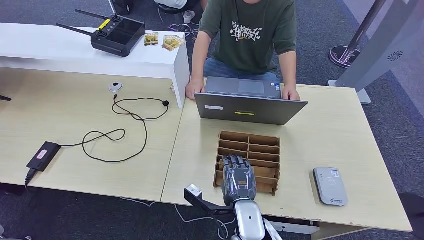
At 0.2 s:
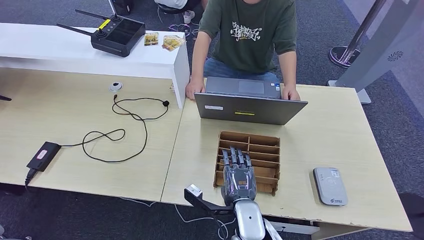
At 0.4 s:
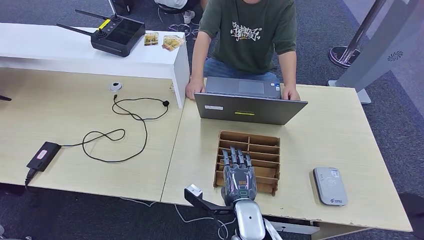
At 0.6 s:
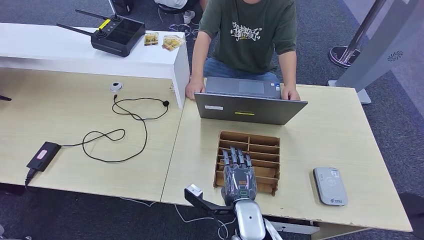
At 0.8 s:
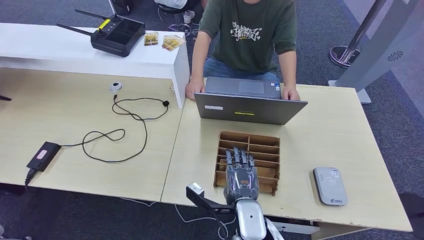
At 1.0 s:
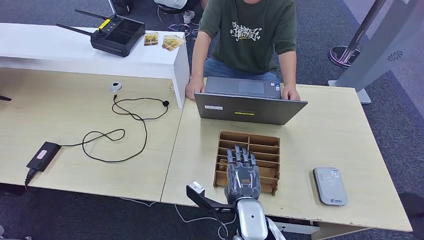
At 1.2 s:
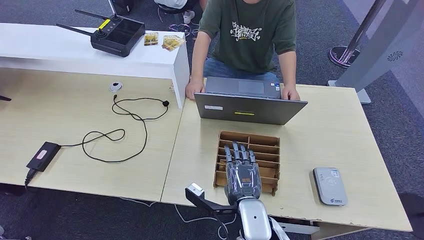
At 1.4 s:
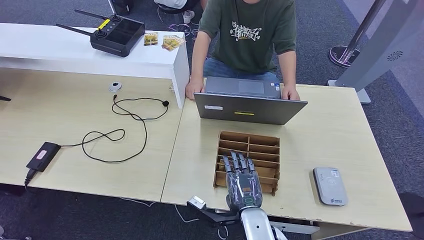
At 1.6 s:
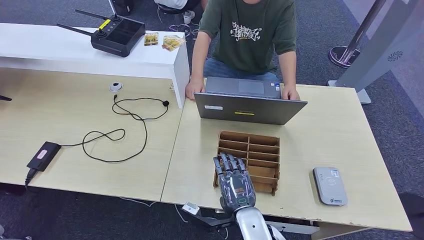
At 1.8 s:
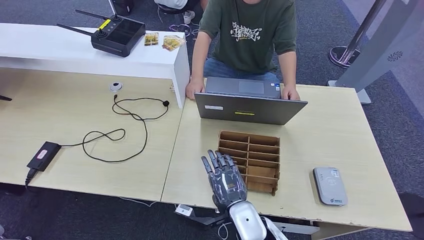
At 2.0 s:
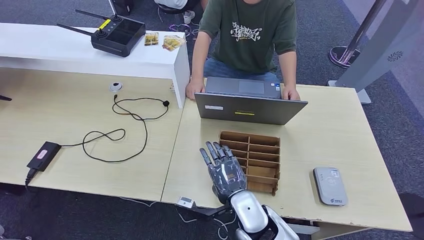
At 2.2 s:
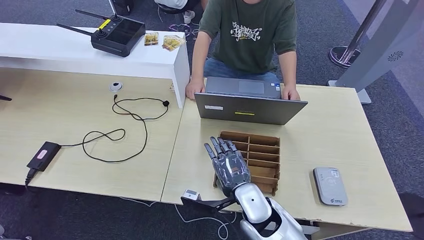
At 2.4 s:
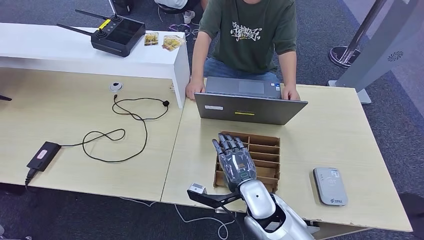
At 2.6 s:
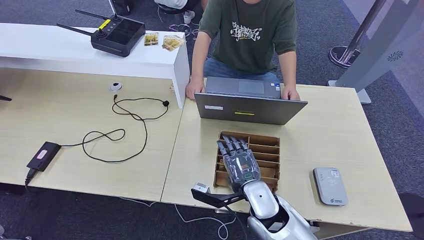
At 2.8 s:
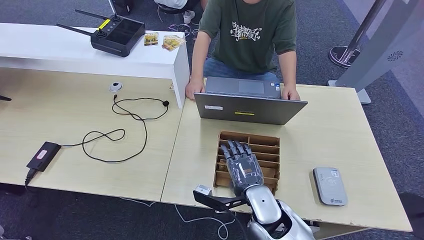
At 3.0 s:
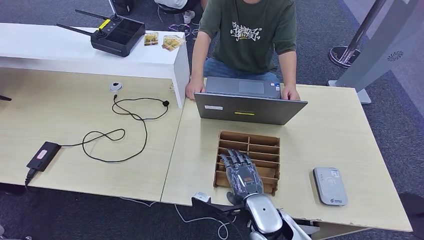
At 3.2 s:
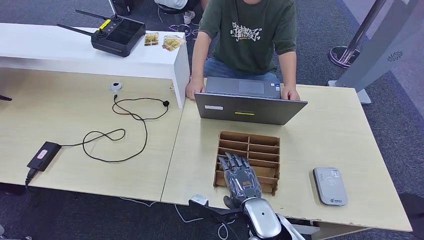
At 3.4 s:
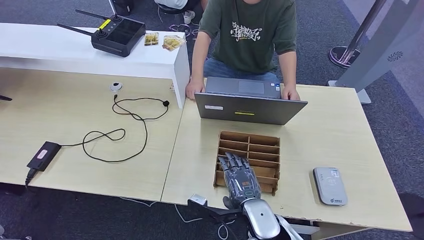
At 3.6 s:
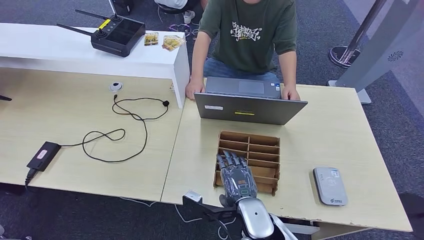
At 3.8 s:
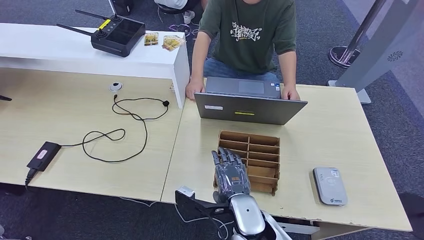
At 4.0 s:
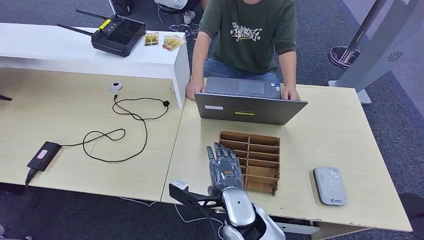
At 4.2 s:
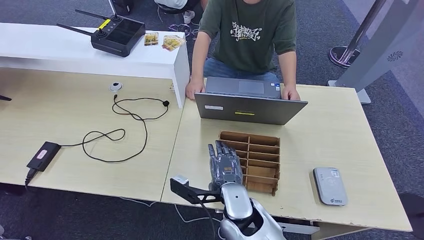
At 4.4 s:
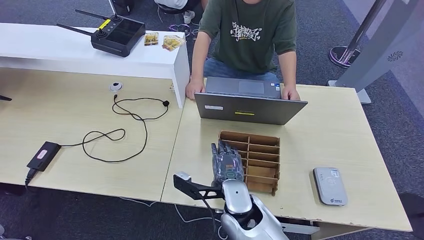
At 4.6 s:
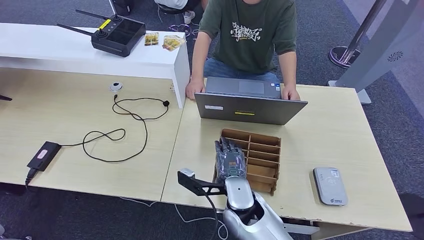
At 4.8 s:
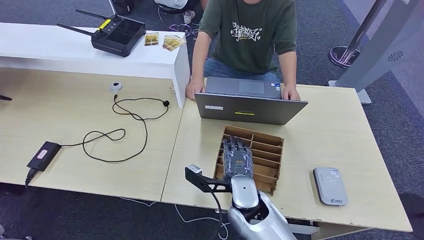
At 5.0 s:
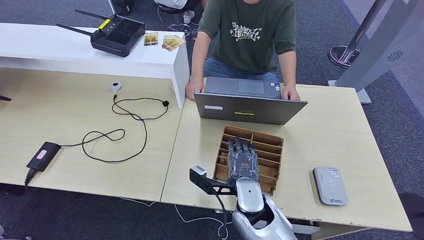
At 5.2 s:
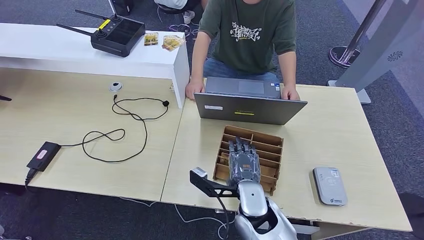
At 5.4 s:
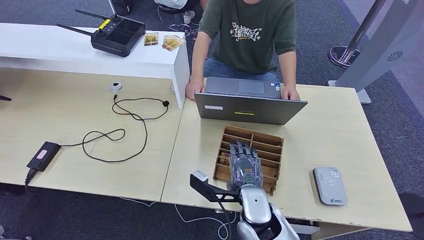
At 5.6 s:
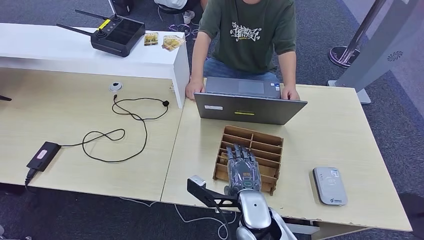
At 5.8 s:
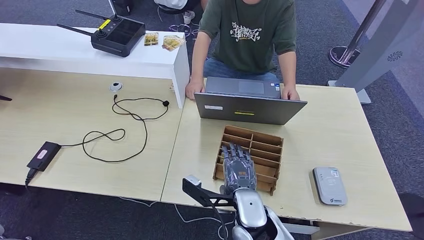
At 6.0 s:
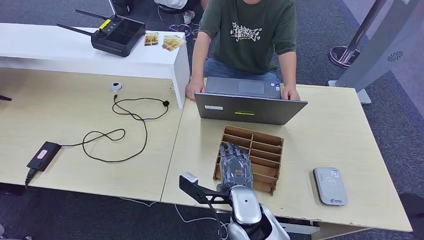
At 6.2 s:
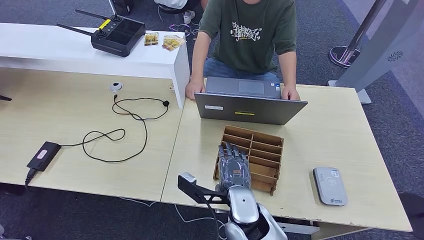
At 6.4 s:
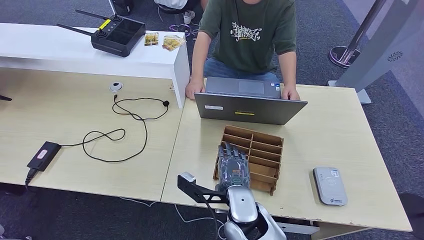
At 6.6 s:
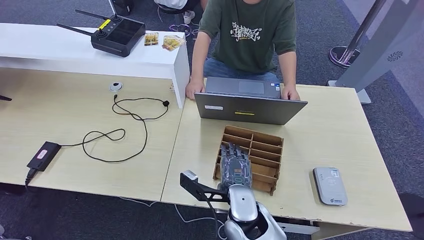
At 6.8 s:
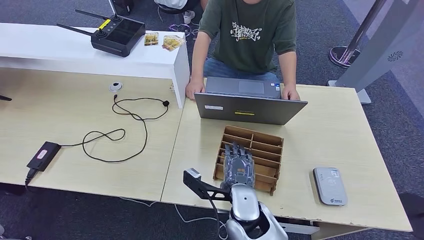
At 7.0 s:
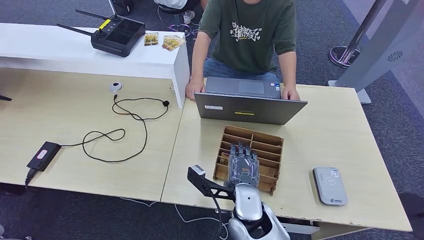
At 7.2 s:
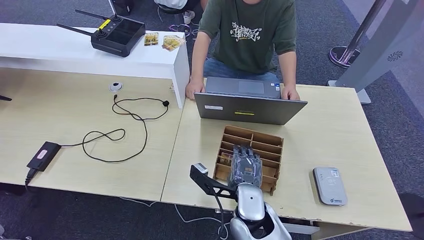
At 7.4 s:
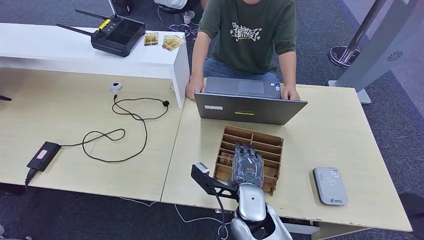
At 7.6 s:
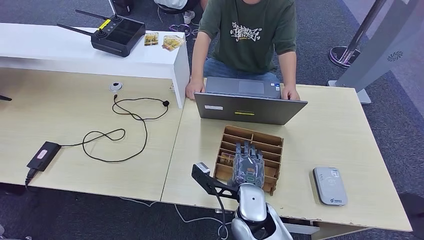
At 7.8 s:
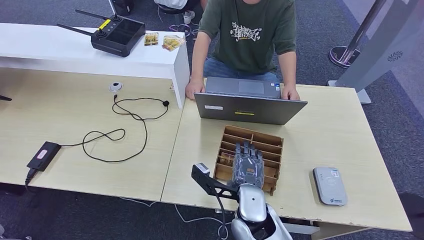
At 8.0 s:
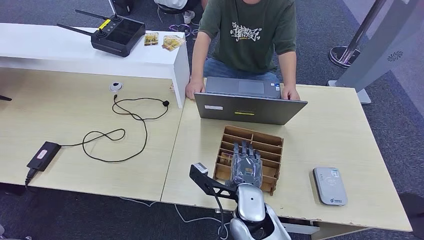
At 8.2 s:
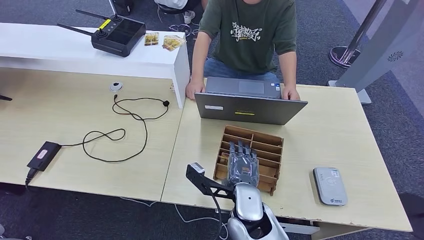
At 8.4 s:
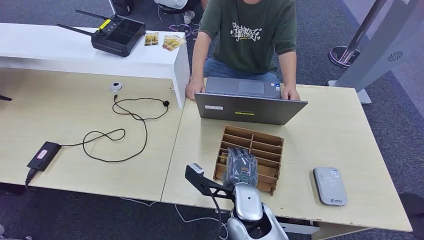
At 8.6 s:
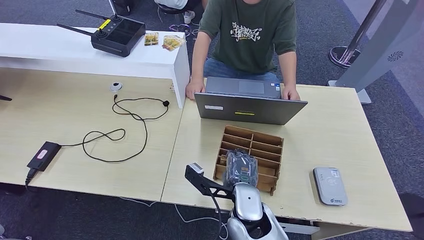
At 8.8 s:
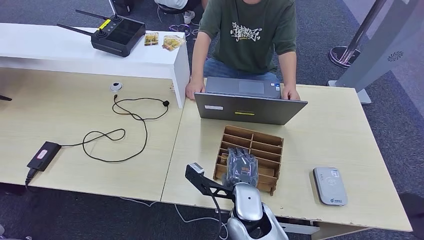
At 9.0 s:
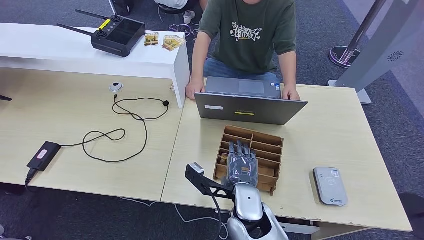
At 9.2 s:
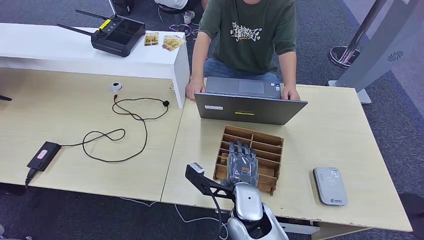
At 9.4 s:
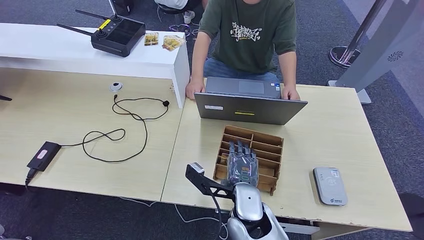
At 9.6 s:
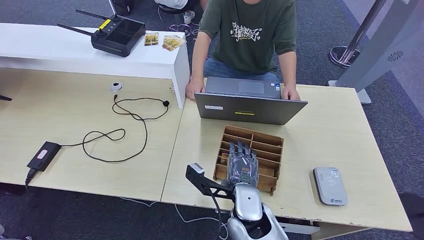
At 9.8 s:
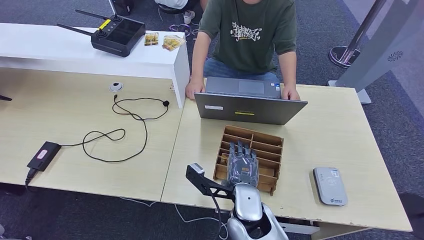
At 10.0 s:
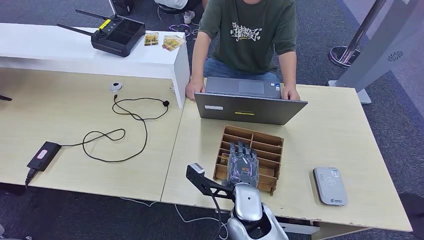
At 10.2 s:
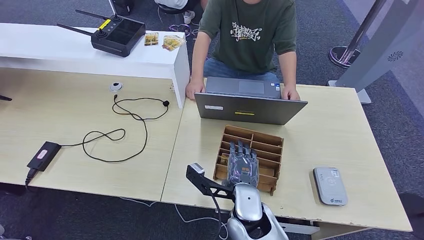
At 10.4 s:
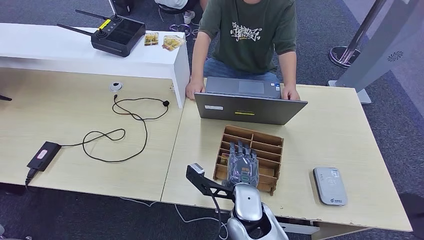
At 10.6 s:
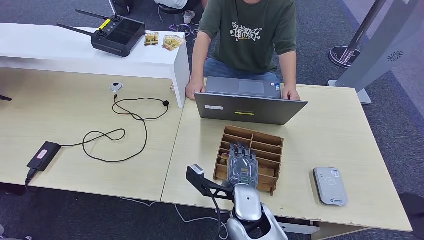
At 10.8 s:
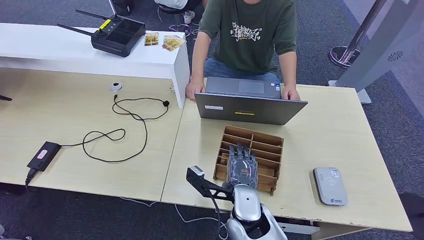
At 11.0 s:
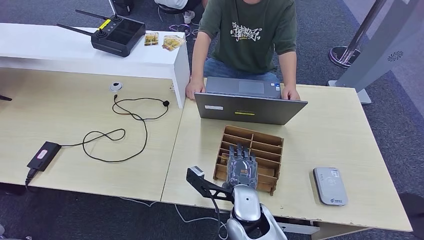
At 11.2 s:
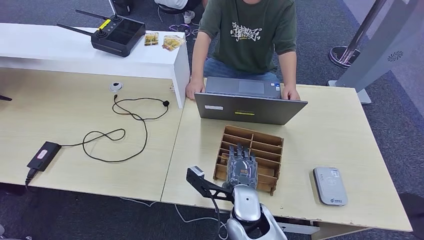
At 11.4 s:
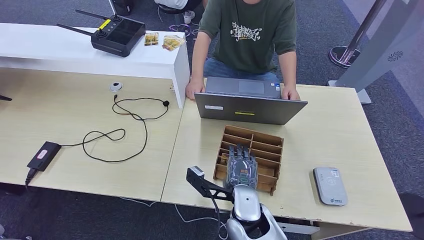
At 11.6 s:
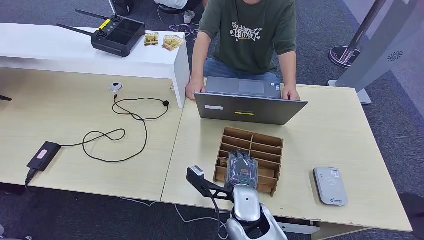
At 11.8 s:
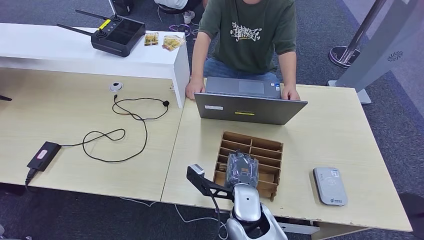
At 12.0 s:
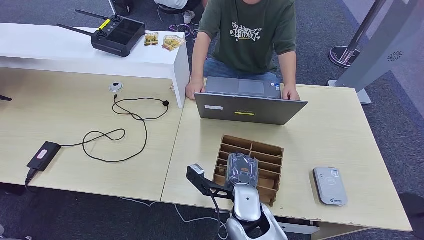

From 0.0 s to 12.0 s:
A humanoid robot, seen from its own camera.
From 0.0 s to 1.6 s: The hands move only a little.
From 1.6 s to 3.0 s: The right hand changes place by roughly 5 cm.
From 3.0 s to 4.4 s: The right hand moves to the left, roughly 5 cm.
From 4.4 s to 7.6 s: There are only small adjustments of the hands.
From 7.6 s to 10.4 s: Both hands stay put.
From 10.4 s to 12.0 s: The two hands keep their place.

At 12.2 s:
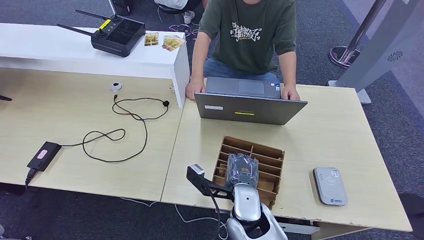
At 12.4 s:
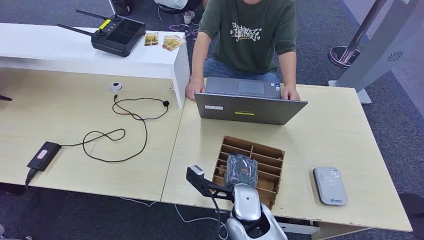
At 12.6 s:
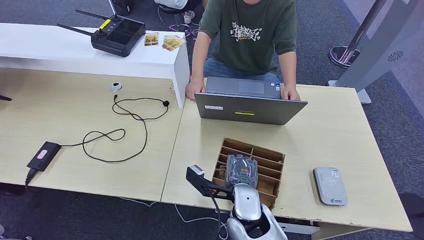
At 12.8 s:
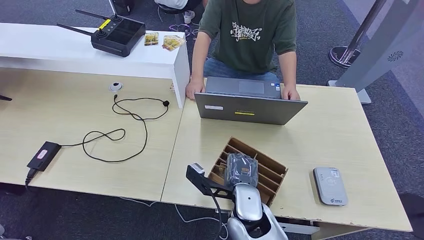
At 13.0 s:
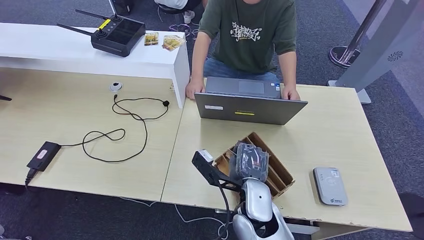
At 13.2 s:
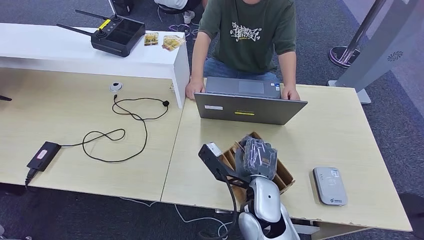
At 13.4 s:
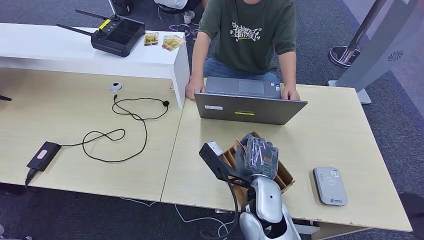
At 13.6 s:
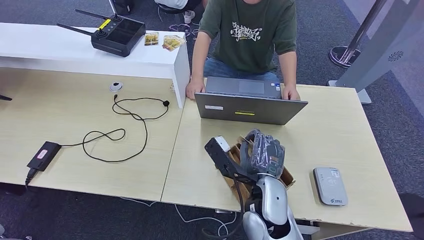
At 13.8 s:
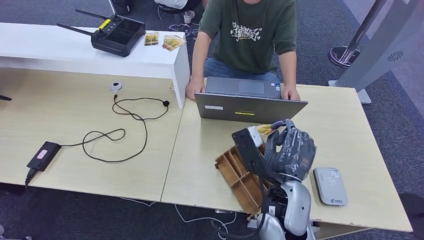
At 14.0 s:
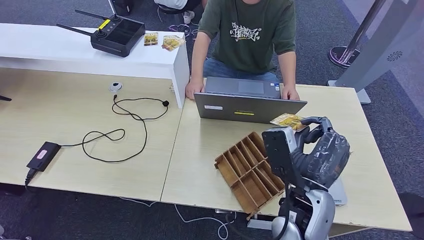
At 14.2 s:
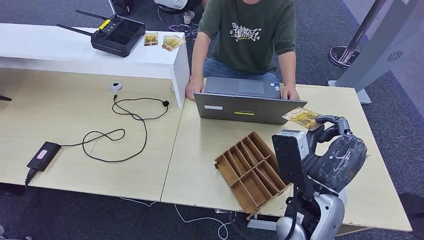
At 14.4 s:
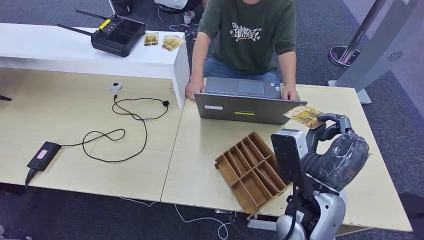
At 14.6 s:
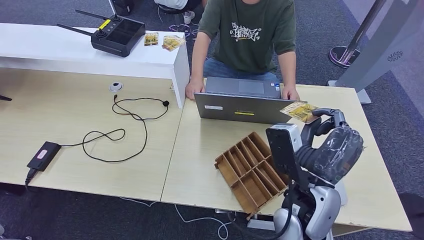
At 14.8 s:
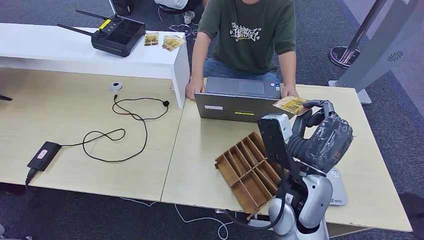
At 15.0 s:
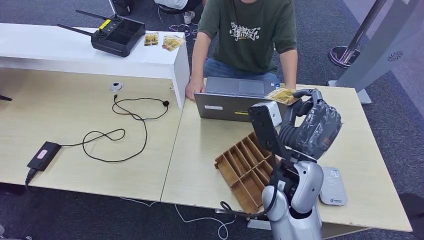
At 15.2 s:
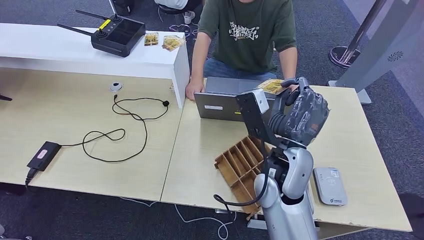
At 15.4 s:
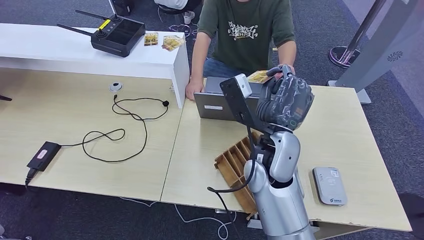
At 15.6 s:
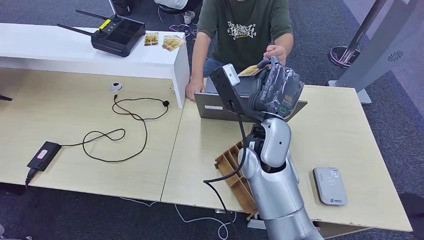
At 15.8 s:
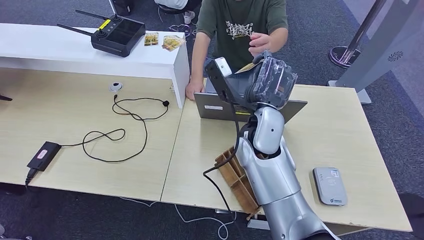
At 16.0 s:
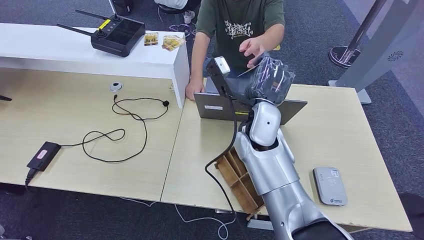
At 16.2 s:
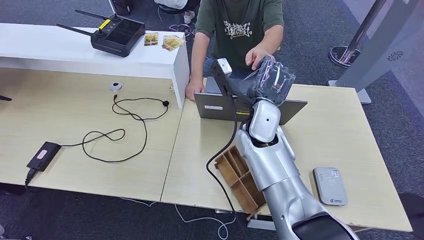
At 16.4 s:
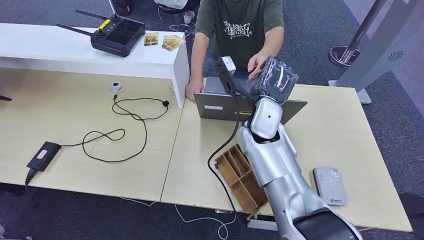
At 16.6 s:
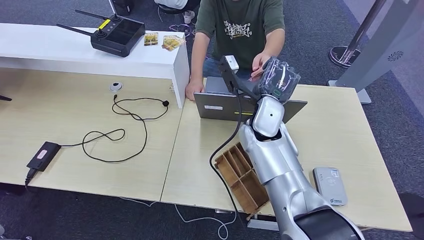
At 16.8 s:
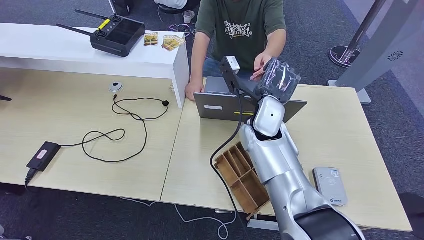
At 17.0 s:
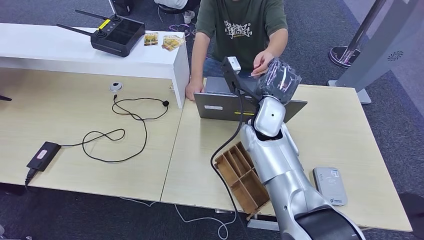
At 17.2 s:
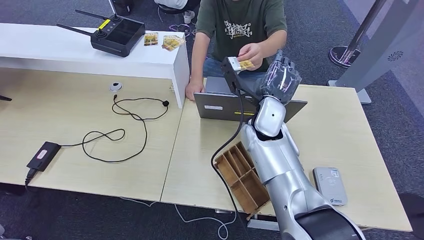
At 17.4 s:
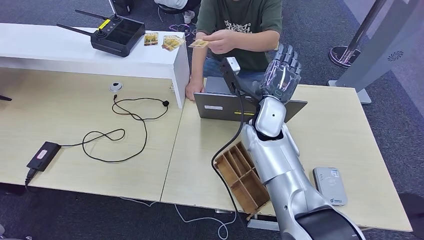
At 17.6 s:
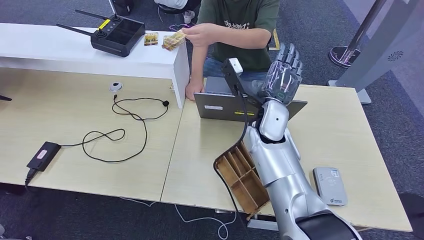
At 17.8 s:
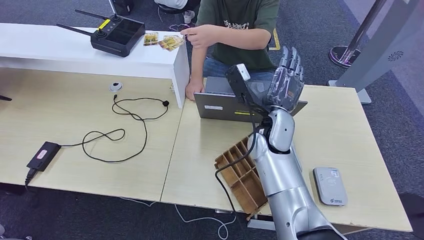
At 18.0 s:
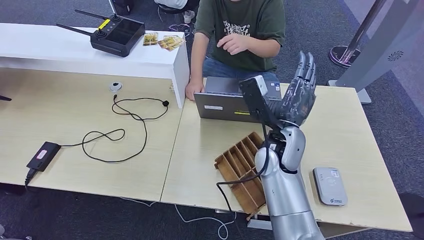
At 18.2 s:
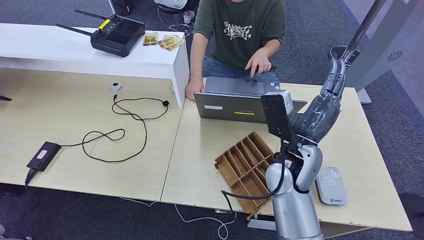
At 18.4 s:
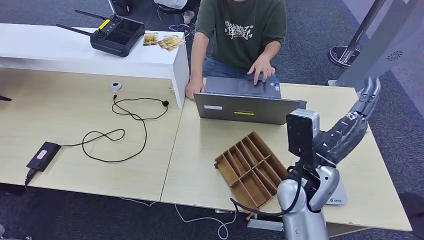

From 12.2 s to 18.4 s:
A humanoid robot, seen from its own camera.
Step, from 12.2 s to 14.4 s: Pick up the room key from the key card box.
Step, from 14.6 s to 18.4 s: Hand the room key to the person.
From 12.2 s to 13.8 s: The right hand moves upward, approximately 10 cm.
From 13.8 s to 15.4 s: The right hand shifts some 10 cm forward and upward.
From 15.4 s to 16.8 s: The right hand goes some 10 cm forward.
From 16.8 s to 18.4 s: The right hand travels backward and to the right by roughly 10 cm.
